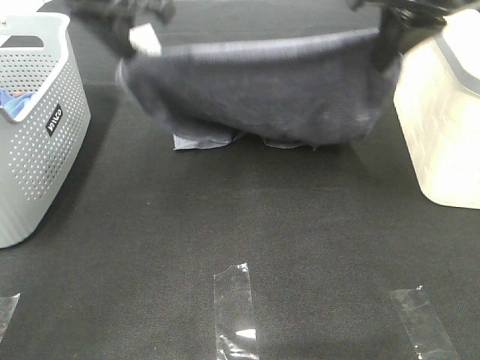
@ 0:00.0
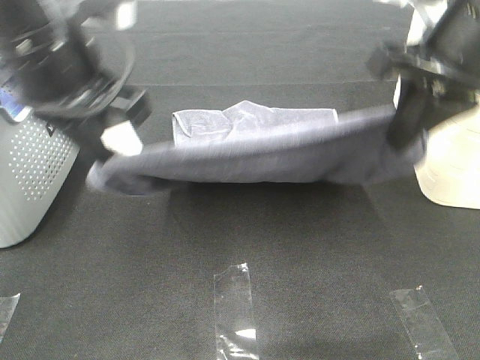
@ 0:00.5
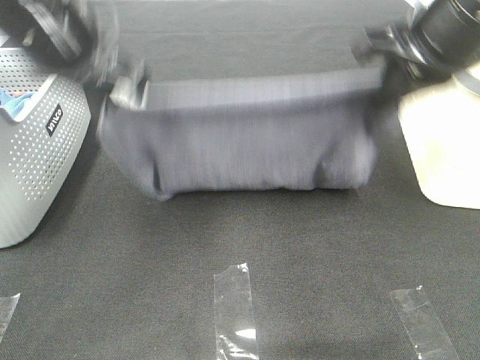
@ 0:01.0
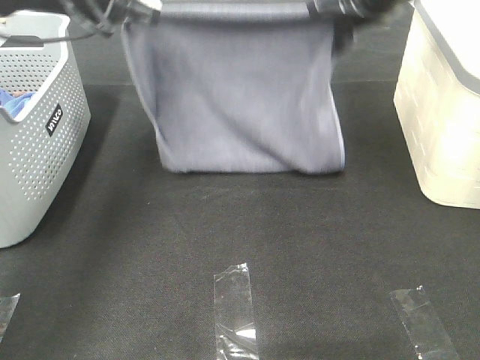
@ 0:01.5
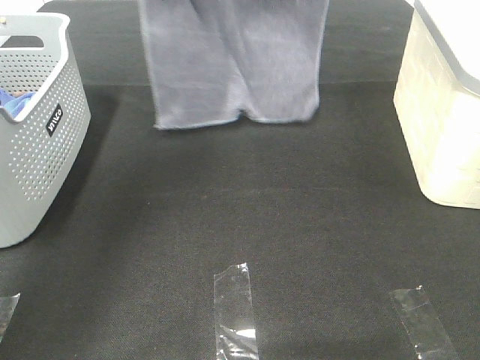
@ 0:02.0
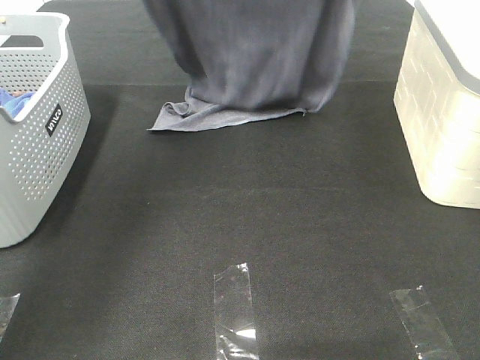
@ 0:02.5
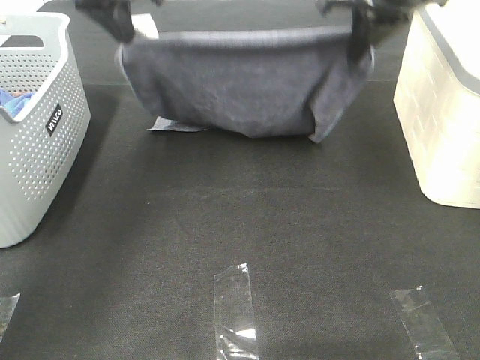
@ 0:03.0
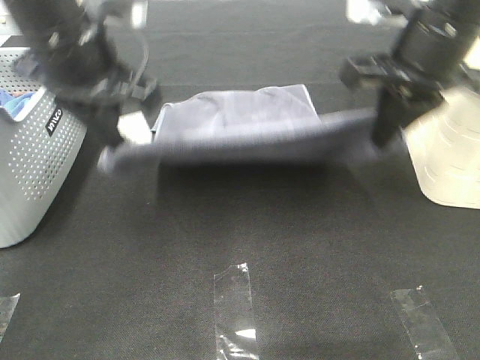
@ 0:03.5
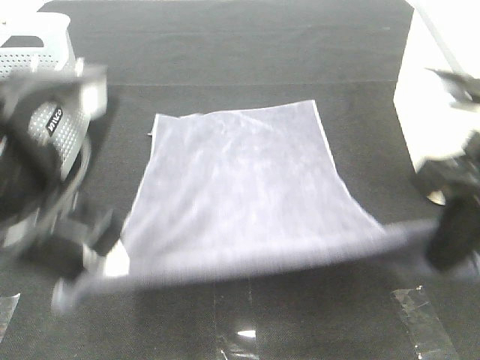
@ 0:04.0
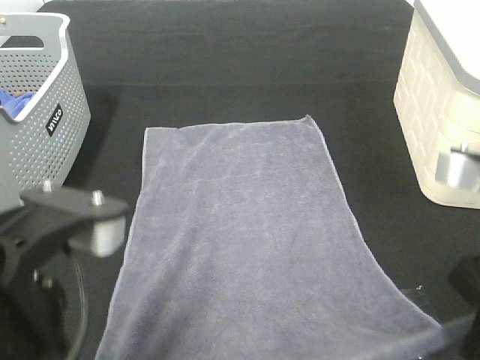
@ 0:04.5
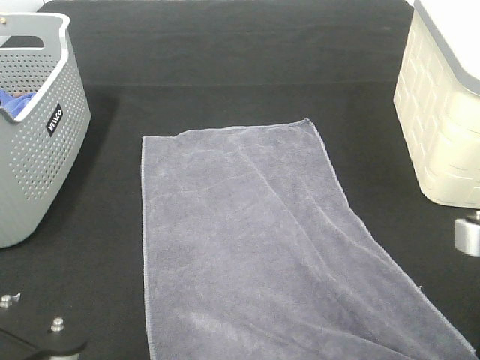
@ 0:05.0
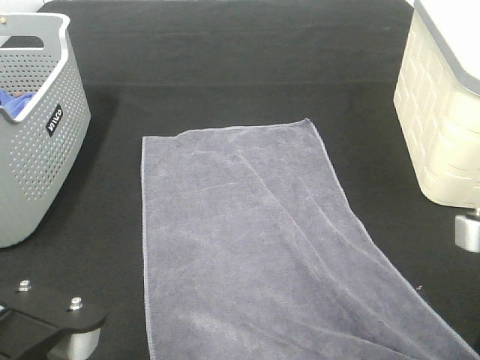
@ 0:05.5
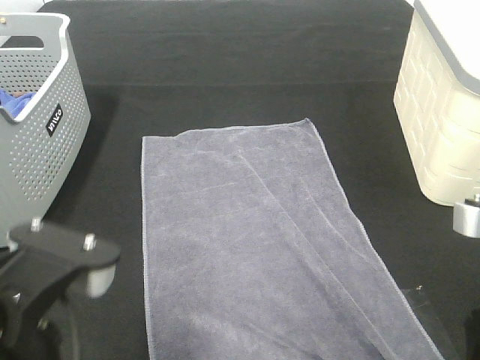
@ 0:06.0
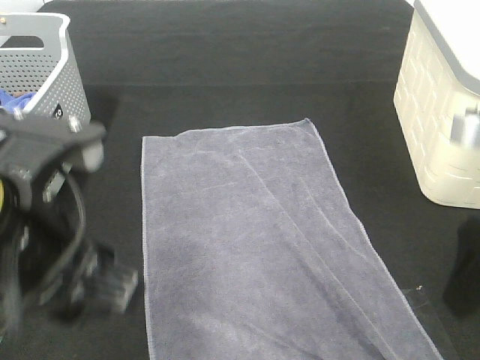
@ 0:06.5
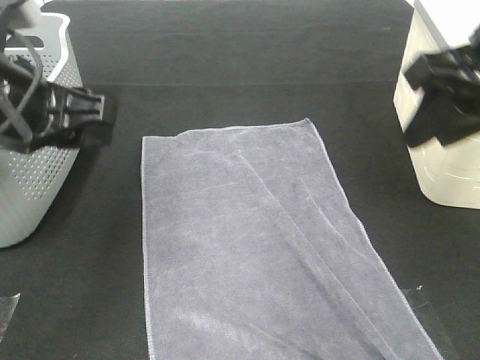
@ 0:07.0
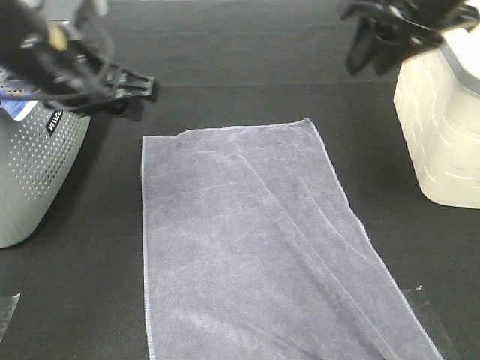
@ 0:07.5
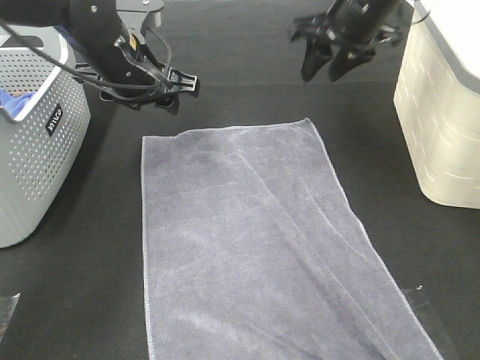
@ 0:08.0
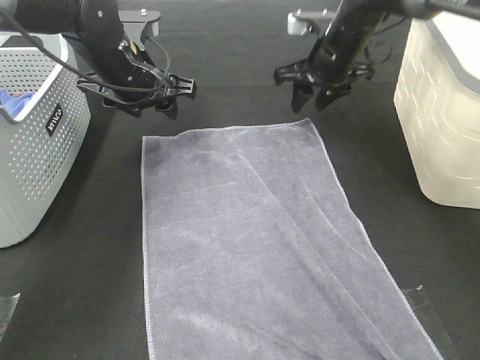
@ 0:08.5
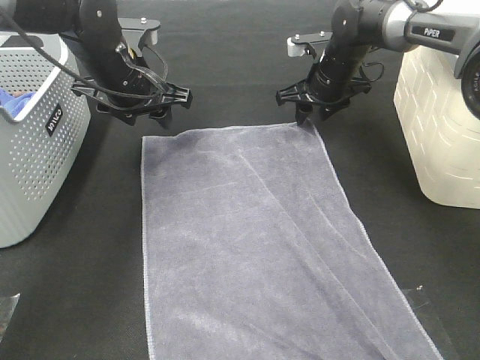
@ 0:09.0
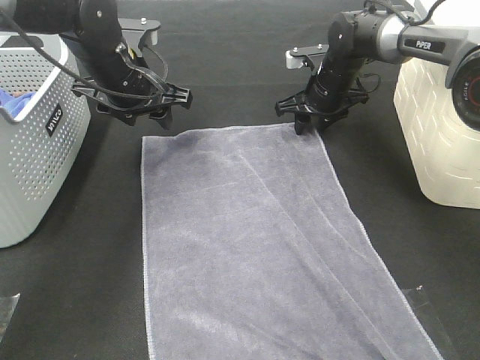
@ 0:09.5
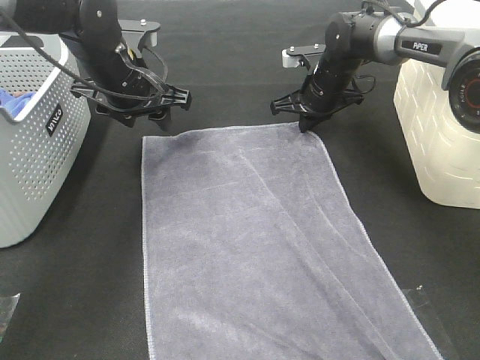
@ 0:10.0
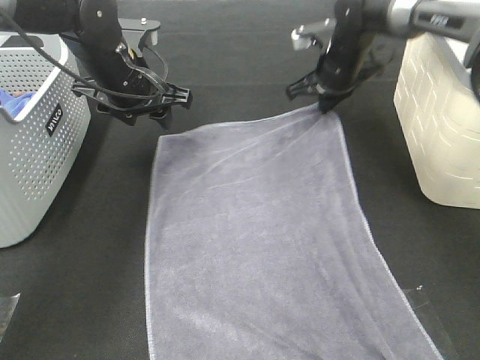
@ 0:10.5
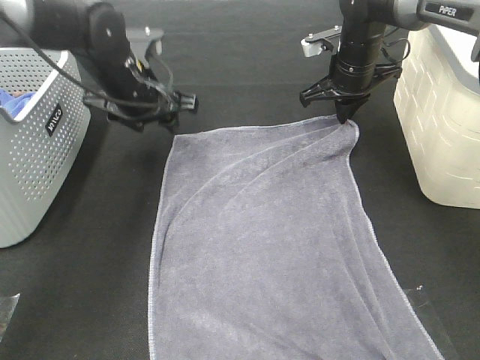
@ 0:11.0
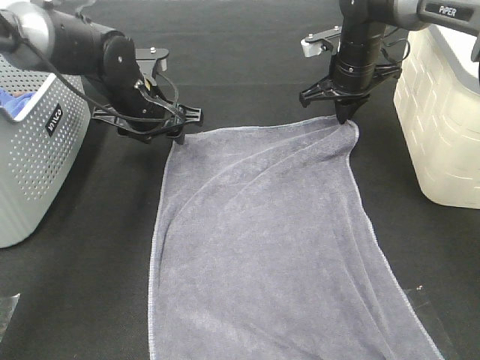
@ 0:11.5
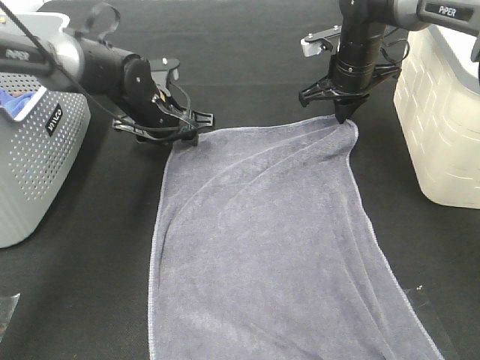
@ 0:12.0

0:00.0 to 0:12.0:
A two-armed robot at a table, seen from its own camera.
Task of the whole recording: Remove the towel and place it.
Step, 0:01.5 to 0:08.0: Left hand:adjust the gray towel.
Step, 0:01.5 to 0:08.0: Right hand:adjust the gray towel.
0:00.0 to 0:02.0: Both grippers move upward and forward, about 20 cm.
0:02.0 to 0:04.0: The grippers both shift backward and downward by approximately 35 cm.
0:04.0 to 0:06.0: The right gripper travels backward and downward by approximately 10 cm, and opens its fingers, while the left gripper moves backward, roughly 10 cm, and opens its fingers.
0:06.0 to 0:08.0: Both grippers travel together forward, approximately 35 cm. The right gripper closes its fingers.
0:08.0 to 0:10.0: The right gripper is displaced downward and forward by roughly 15 cm, and closes up.
0:10.0 to 0:12.0: The right gripper shifts roughly 5 cm upward. Meanwhile the left gripper moves downward, approximately 10 cm.

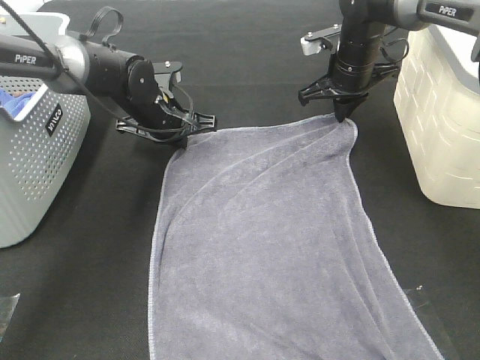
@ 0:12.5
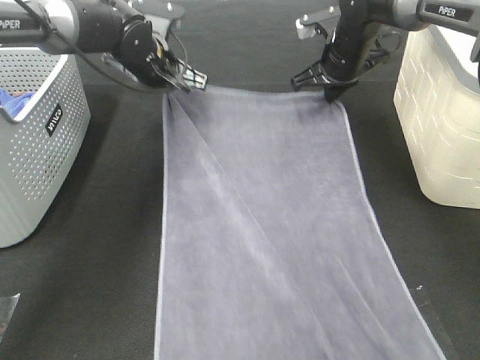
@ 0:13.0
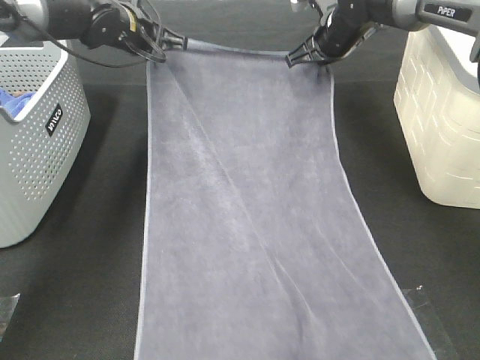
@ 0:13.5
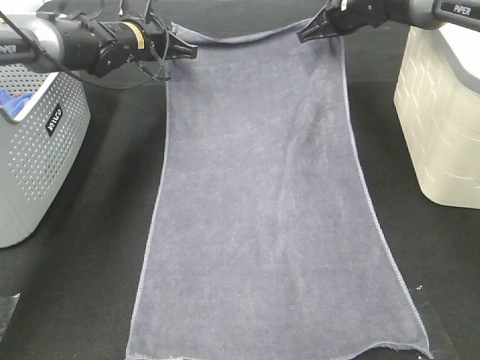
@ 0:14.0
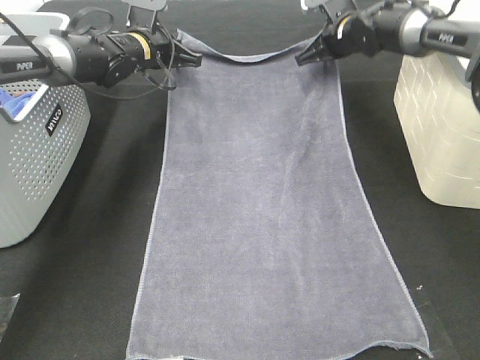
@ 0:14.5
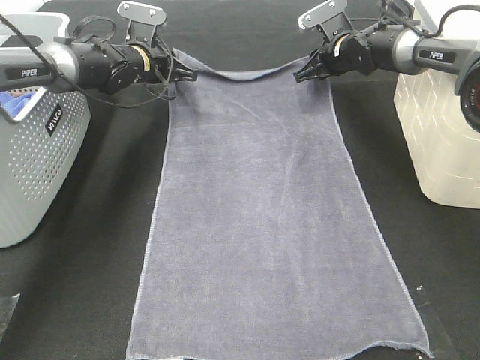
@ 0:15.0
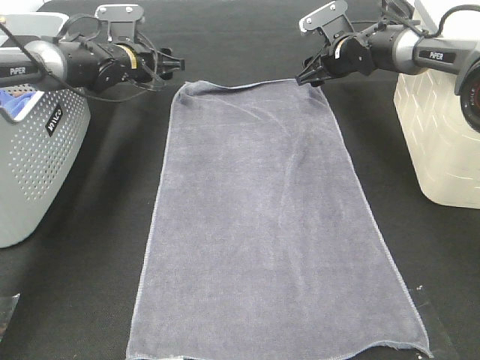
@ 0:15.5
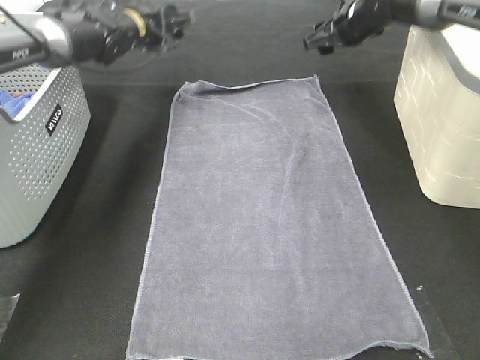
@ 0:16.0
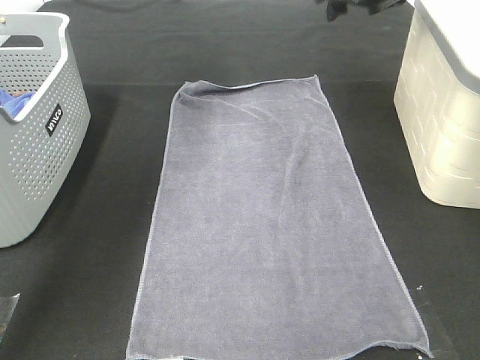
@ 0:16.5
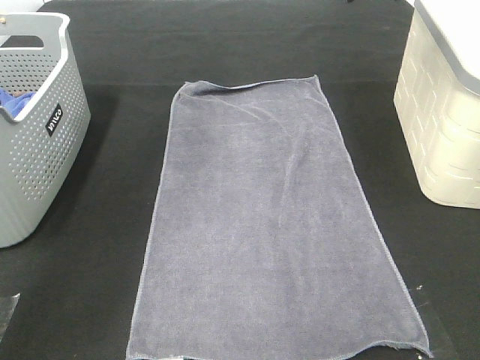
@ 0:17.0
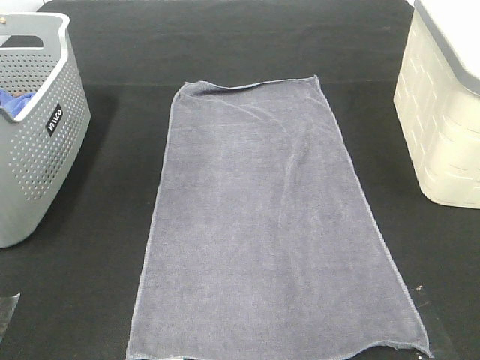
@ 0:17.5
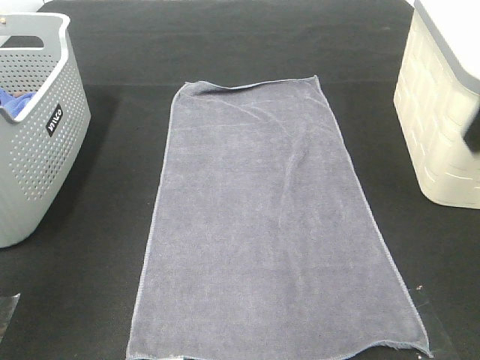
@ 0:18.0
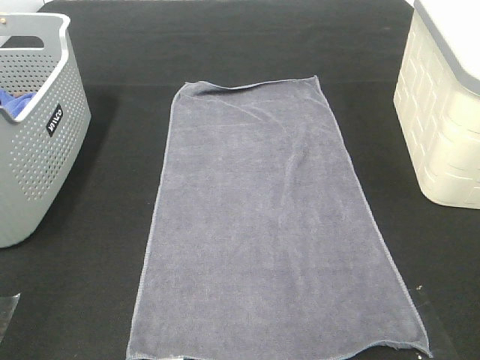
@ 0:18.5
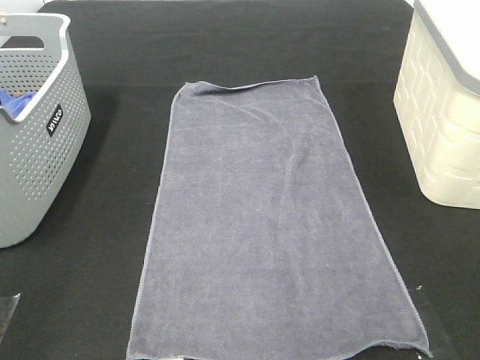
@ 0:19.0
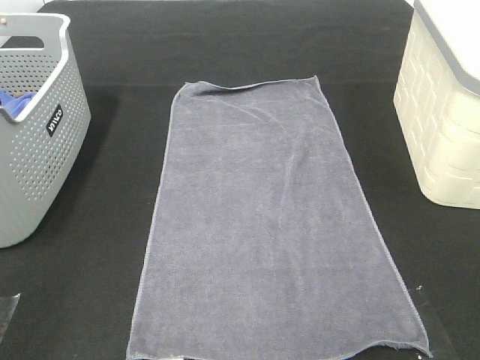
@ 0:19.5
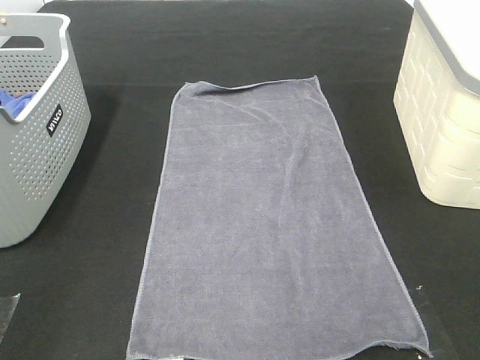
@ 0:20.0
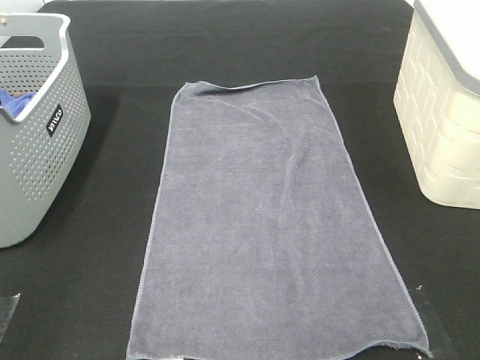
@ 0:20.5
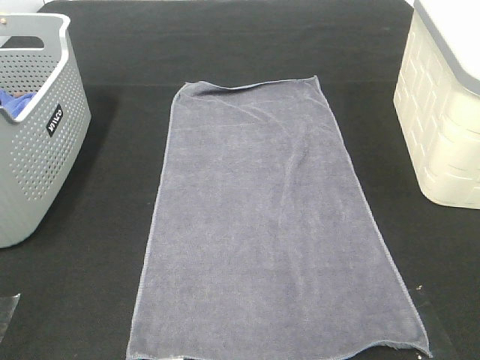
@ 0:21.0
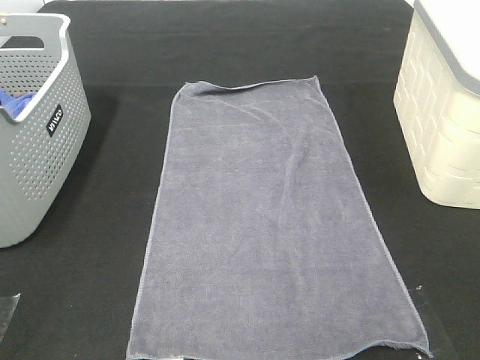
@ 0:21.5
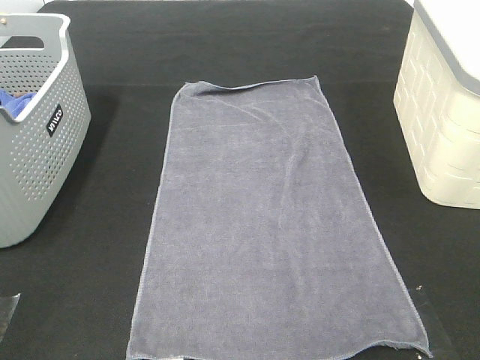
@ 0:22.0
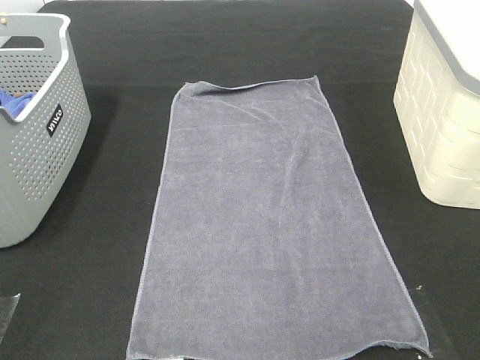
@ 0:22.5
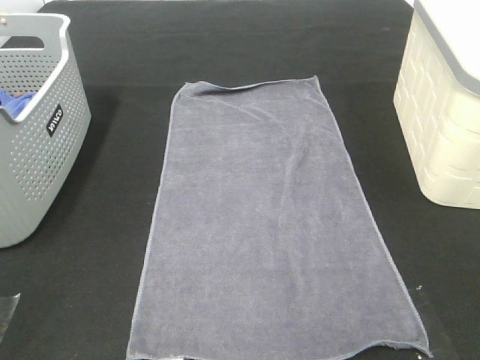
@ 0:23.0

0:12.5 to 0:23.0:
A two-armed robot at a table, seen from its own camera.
Task of the whole recording: Remove the towel and place it.
0:12.5 to 0:14.5: The grippers both shift forward by roughly 10 cm.
0:14.5 to 0:16.5: The right gripper moves upward and backward, approximately 15 cm, and opens up. Meanwhile the left gripper is displaced upward by some 15 cm, and opens its fingers.
0:16.5 to 0:19.0: The two grippers go about 50 cm backward.

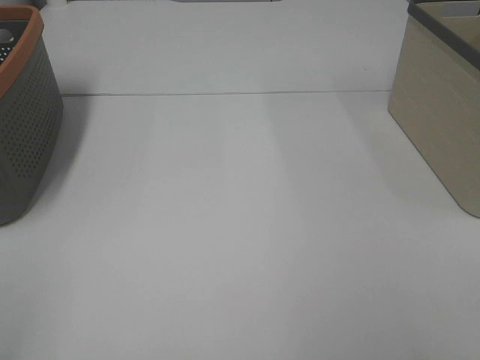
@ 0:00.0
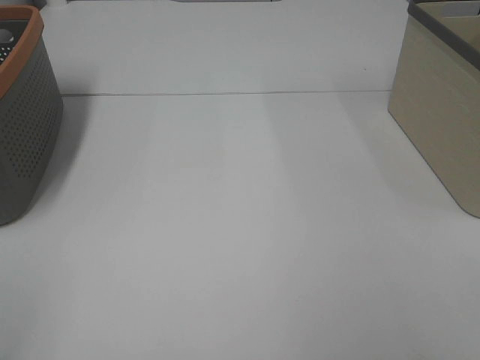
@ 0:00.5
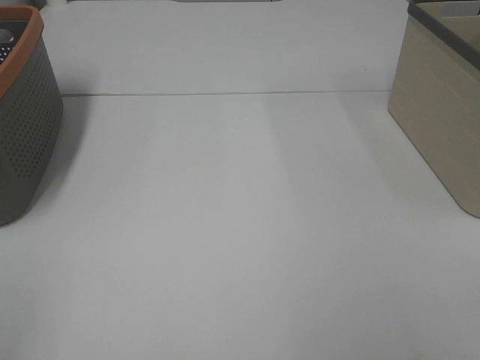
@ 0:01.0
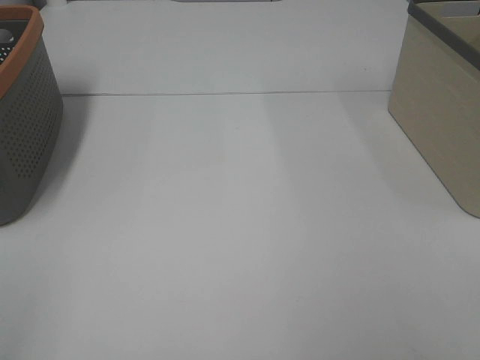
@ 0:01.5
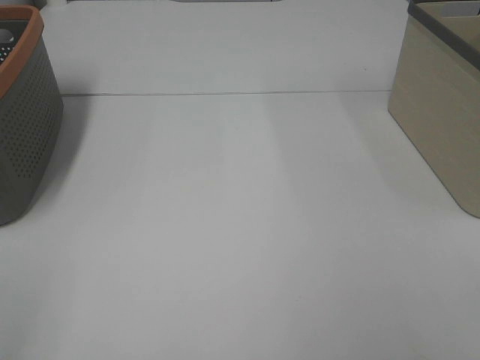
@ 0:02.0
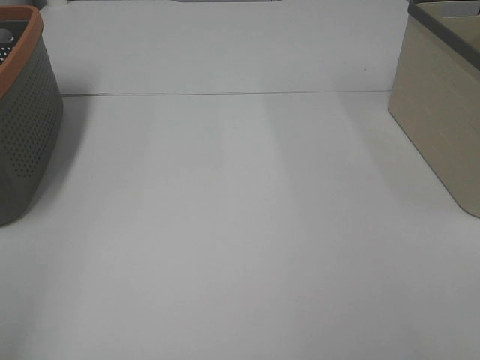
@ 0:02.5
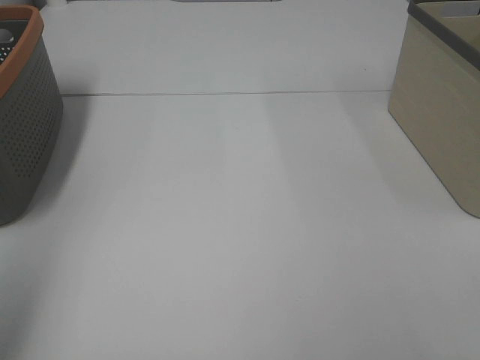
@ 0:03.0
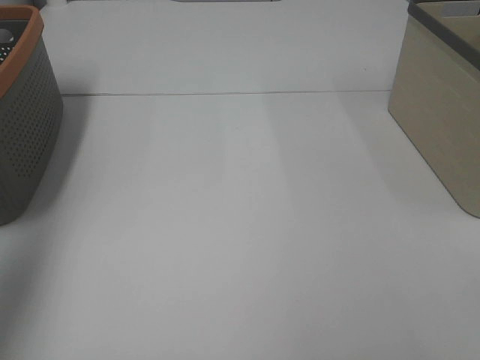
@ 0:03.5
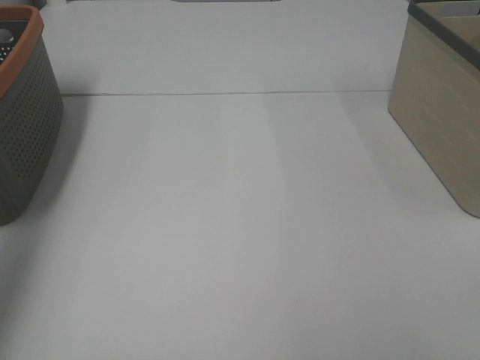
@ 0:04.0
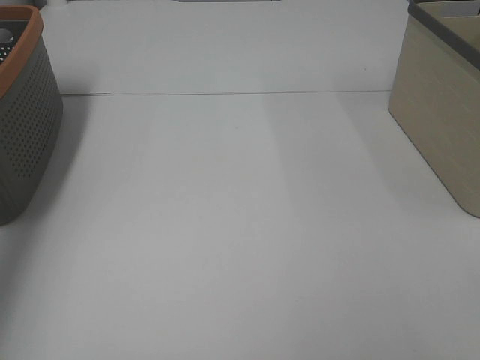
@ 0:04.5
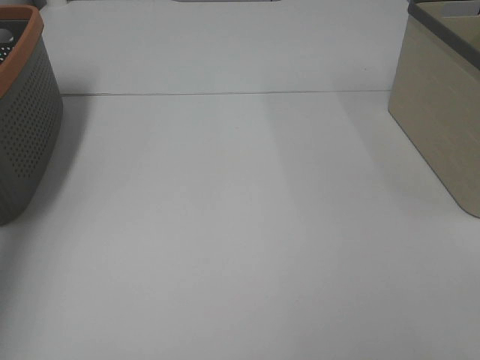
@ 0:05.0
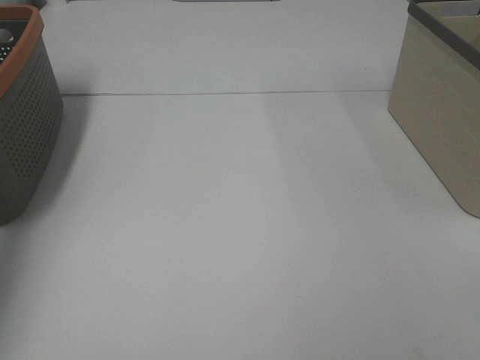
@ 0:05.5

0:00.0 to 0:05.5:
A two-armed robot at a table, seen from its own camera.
Task of the whole recording: Remove the towel and place it.
0:02.0 to 0:03.5: The left gripper heads forward and upward, covering some 20 cm.
0:03.5 to 0:05.5: The left gripper moves forward and downward, approximately 30 cm.
